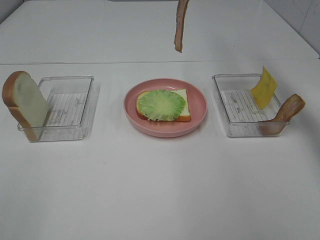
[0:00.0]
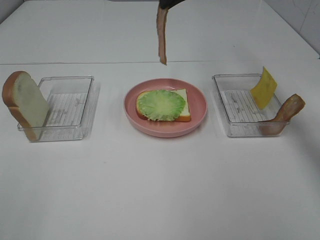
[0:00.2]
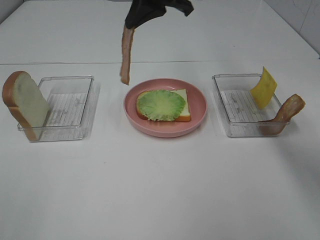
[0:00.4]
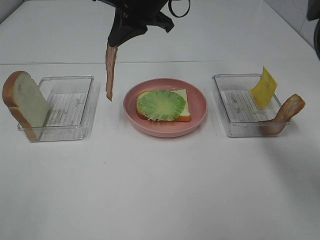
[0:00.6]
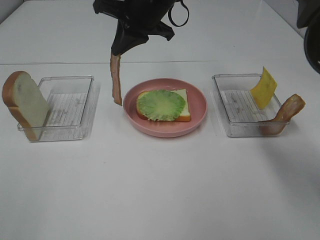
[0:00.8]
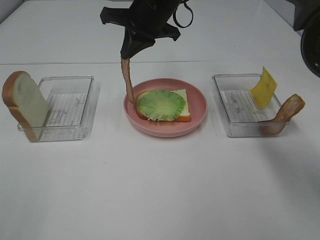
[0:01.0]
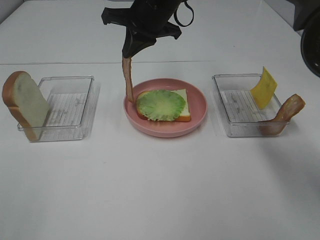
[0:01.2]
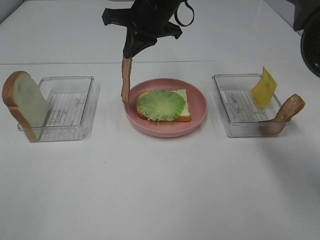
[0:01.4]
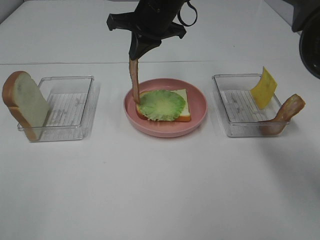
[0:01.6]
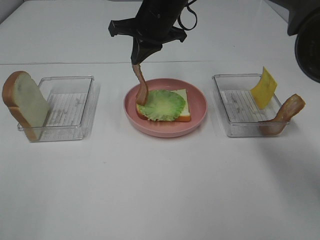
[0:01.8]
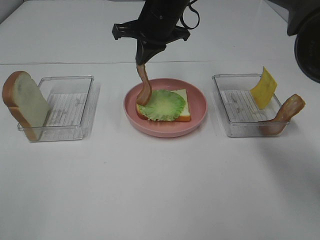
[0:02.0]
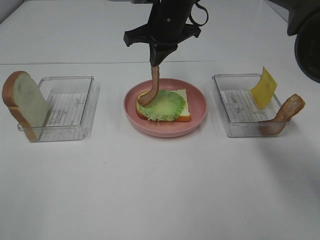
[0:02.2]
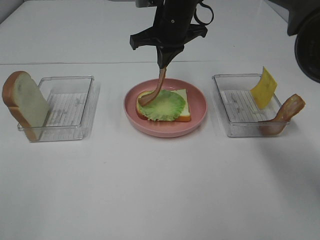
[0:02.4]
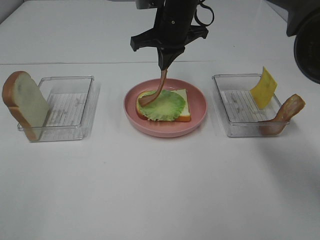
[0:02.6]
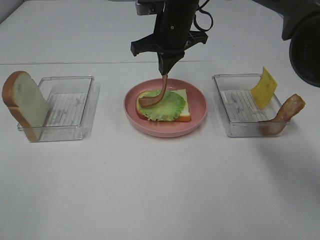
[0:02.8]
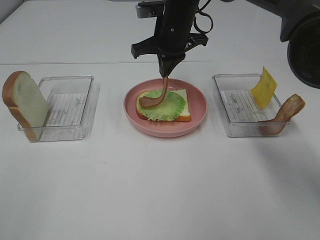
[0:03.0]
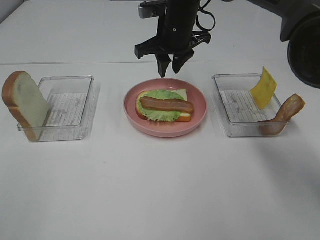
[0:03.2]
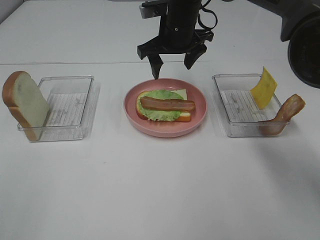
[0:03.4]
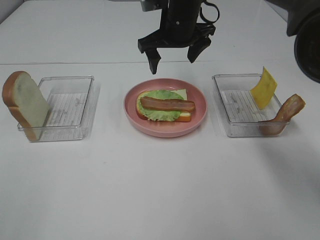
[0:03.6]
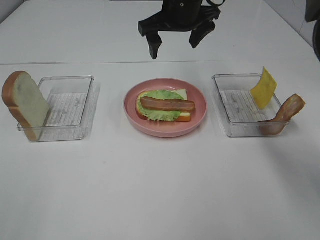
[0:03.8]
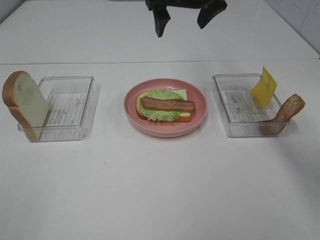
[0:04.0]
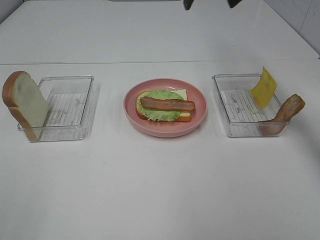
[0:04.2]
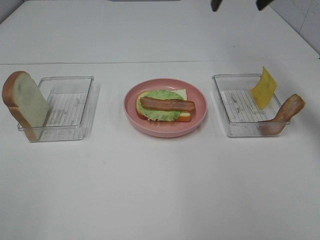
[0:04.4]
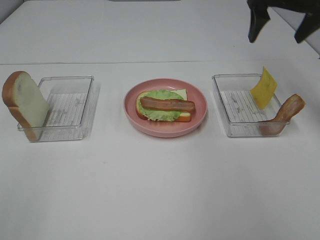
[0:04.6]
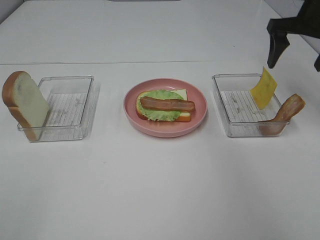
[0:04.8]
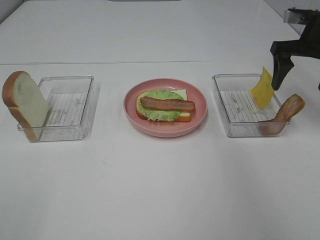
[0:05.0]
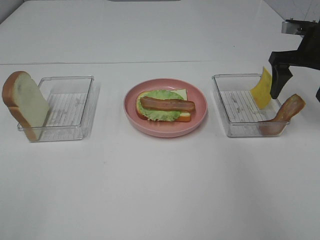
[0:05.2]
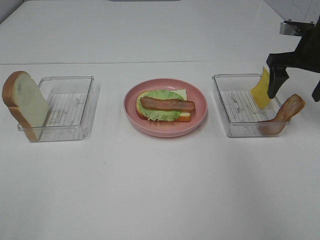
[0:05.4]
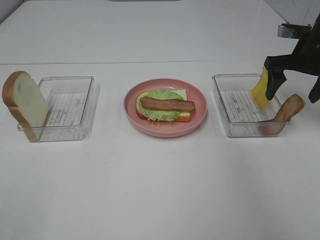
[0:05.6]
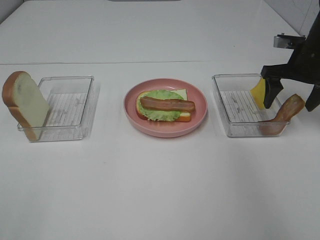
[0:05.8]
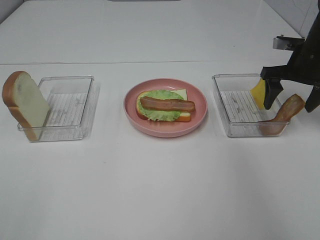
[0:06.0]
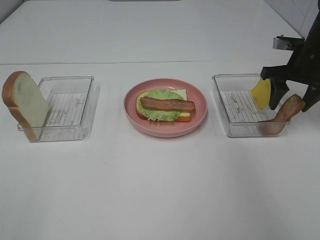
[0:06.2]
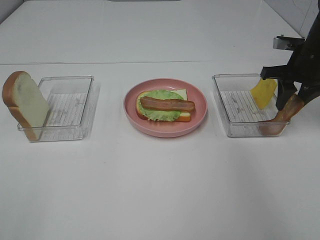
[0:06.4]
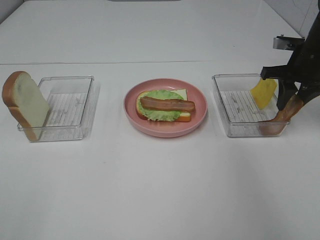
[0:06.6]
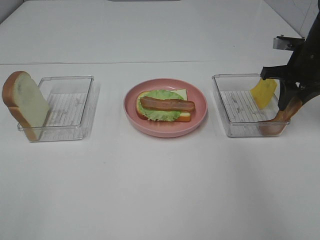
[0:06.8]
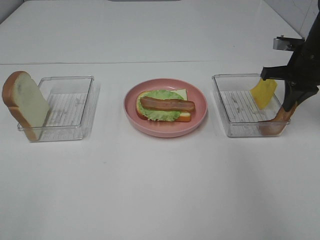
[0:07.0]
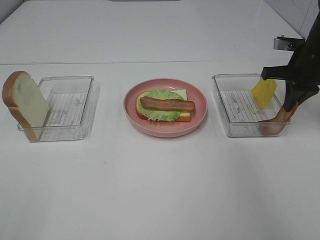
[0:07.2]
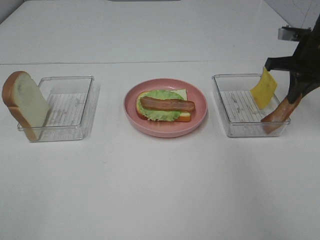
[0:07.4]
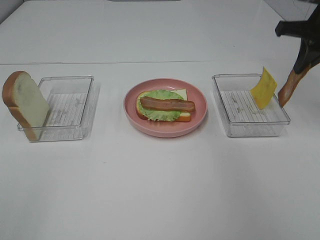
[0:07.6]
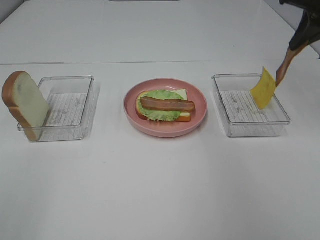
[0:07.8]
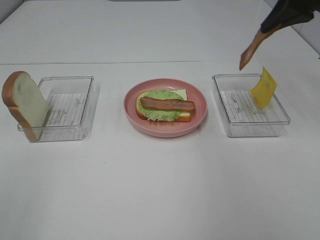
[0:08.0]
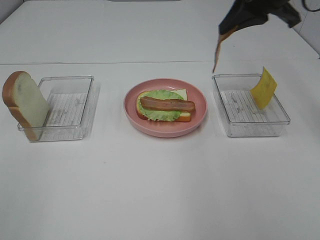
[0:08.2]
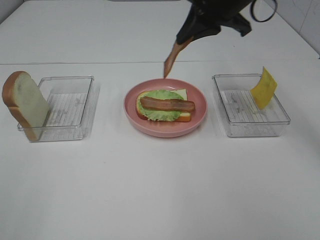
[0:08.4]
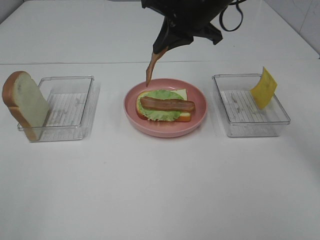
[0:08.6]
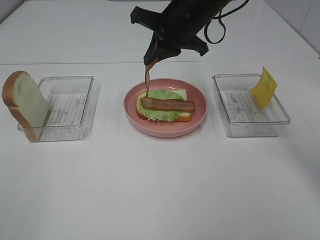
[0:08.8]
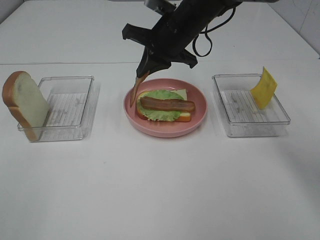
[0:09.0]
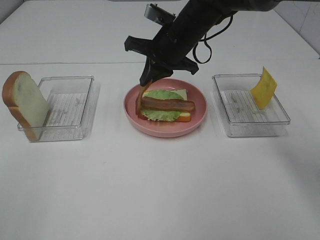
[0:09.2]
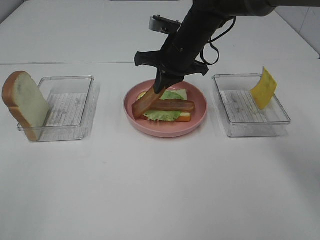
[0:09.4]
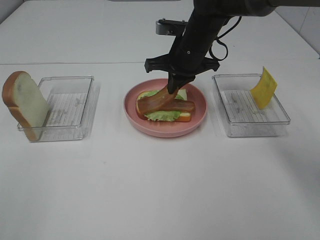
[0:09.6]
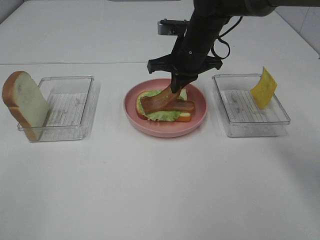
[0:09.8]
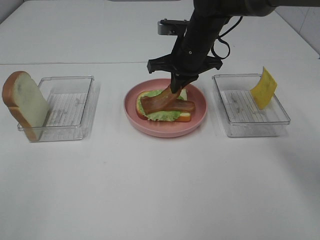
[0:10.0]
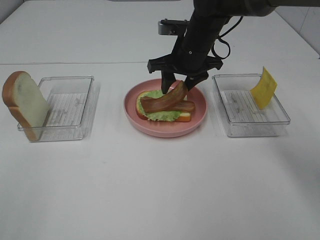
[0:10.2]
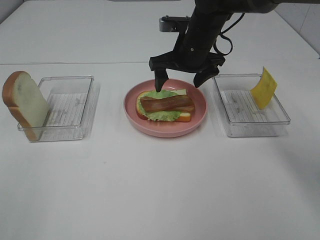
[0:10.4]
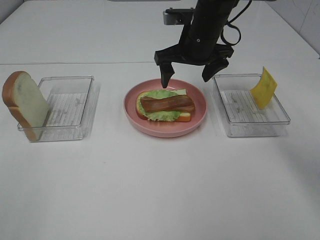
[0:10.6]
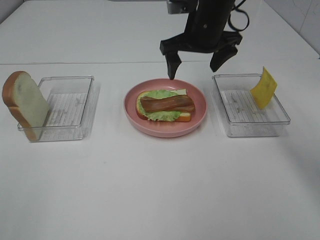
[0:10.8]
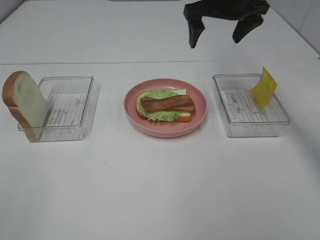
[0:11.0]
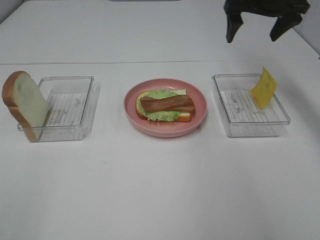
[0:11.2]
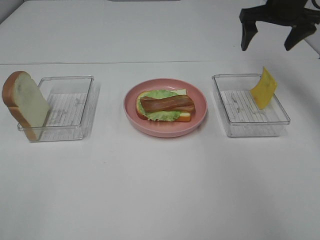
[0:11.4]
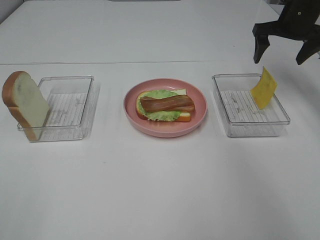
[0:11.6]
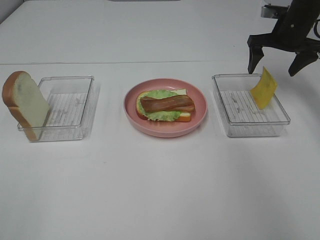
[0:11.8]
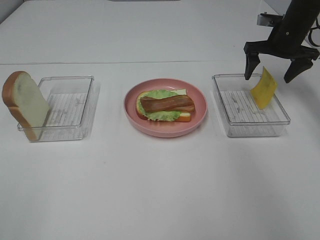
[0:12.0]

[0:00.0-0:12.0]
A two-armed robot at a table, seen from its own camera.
Task of the whole recording: Make sandwiches.
Step, 0:00.0 to 0:03.4: Right hand:place bacon on lettuce slice.
Step, 0:03.6 to 0:07.4: Right hand:grab the bacon.
Step, 0:07.6 to 0:10.4: Right hand:place bacon on bacon.
0:00.0 to 0:01.6: The right gripper travels to the left and downward by roughly 15 cm.
0:01.6 to 0:03.0: The grippers move only a little.
0:03.0 to 0:04.4: The right gripper heads to the right and upward, covering roughly 20 cm, and opens up.
0:04.4 to 0:06.0: The right gripper heads downward and to the right, covering roughly 20 cm.
0:06.0 to 0:07.6: The right gripper travels upward by some 10 cm, and closes up.
0:07.6 to 0:09.0: The right gripper is displaced to the left by roughly 25 cm.
0:09.0 to 0:10.4: The right gripper opens up.
0:10.4 to 0:12.0: The right gripper shifts about 20 cm to the right.

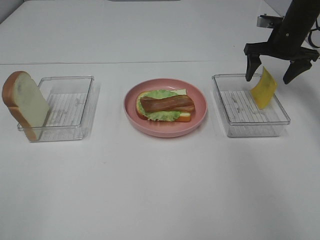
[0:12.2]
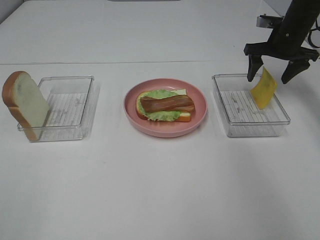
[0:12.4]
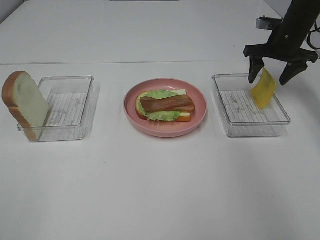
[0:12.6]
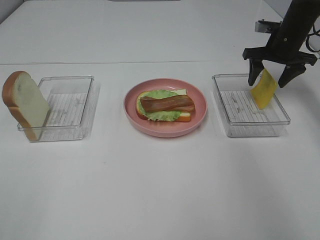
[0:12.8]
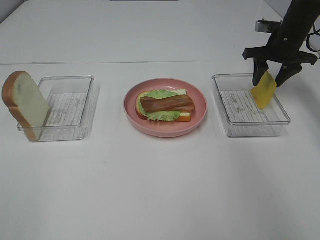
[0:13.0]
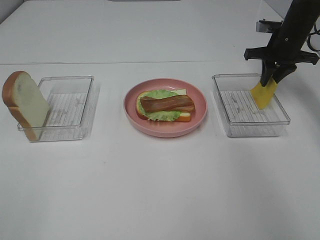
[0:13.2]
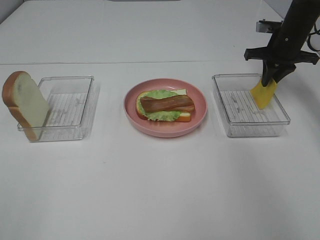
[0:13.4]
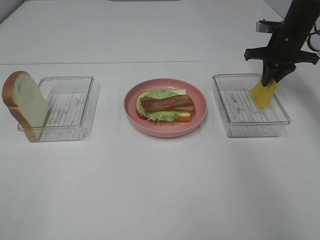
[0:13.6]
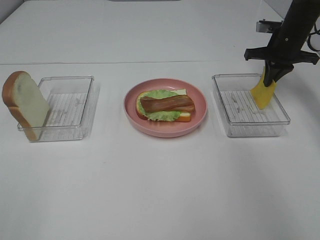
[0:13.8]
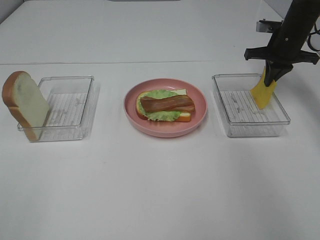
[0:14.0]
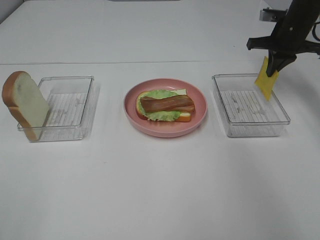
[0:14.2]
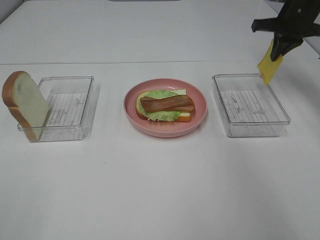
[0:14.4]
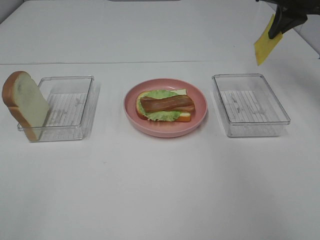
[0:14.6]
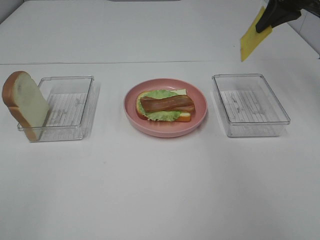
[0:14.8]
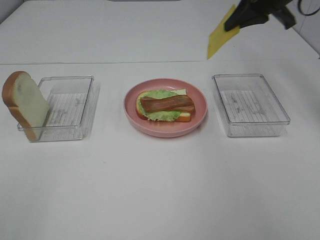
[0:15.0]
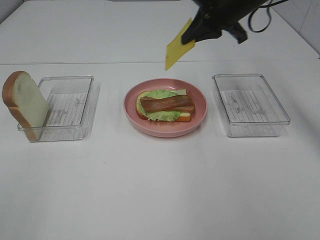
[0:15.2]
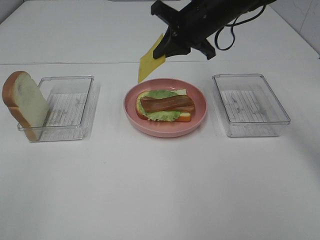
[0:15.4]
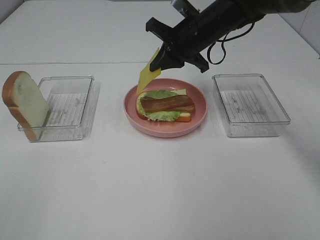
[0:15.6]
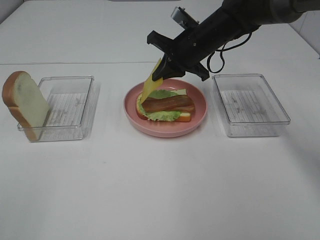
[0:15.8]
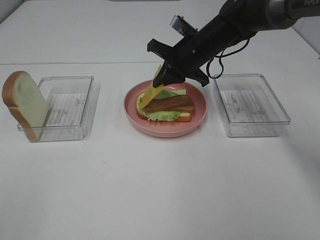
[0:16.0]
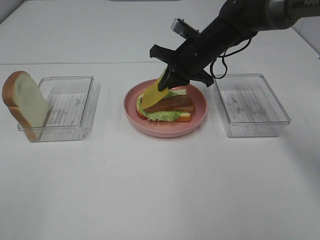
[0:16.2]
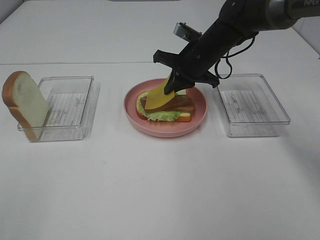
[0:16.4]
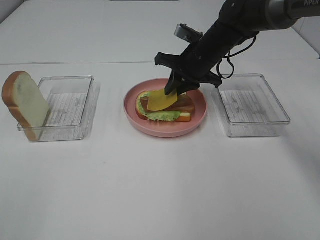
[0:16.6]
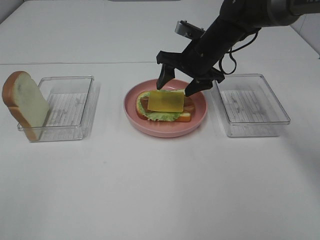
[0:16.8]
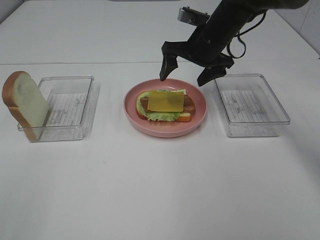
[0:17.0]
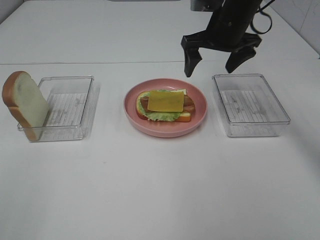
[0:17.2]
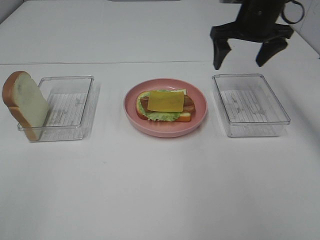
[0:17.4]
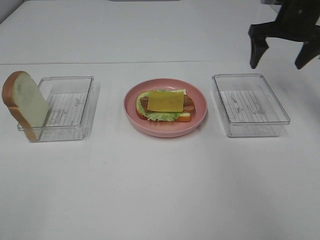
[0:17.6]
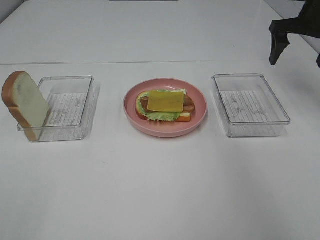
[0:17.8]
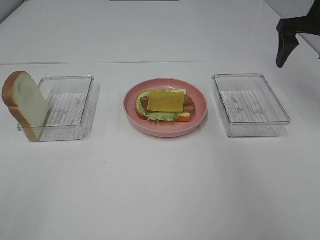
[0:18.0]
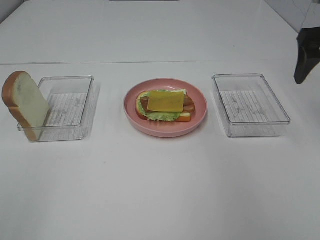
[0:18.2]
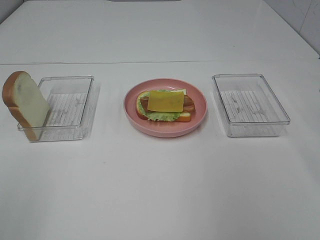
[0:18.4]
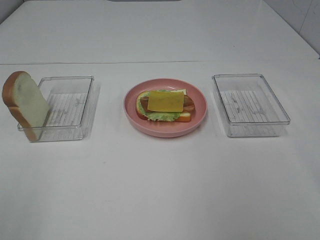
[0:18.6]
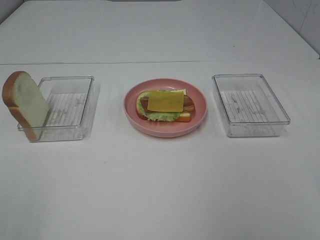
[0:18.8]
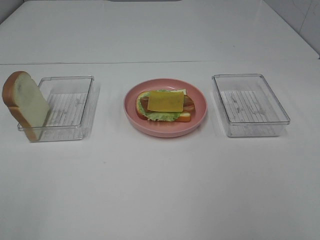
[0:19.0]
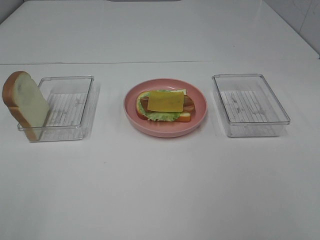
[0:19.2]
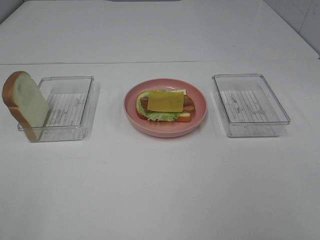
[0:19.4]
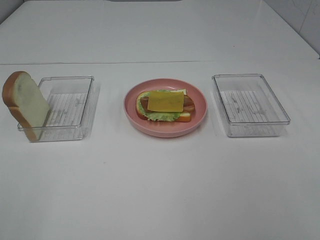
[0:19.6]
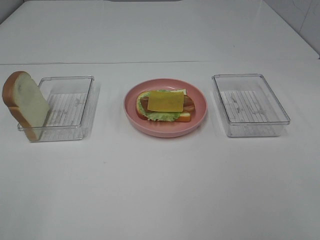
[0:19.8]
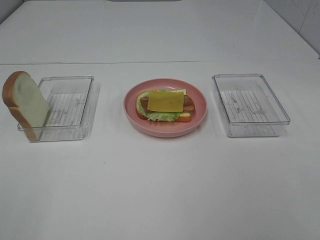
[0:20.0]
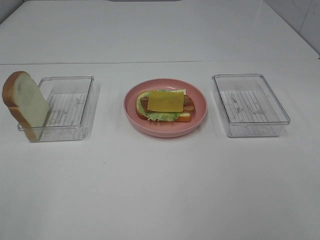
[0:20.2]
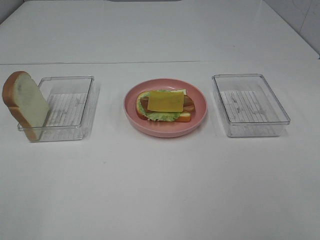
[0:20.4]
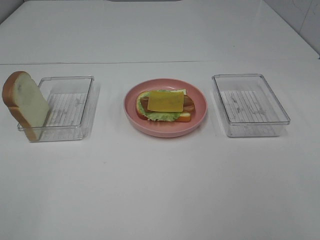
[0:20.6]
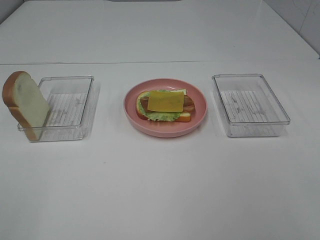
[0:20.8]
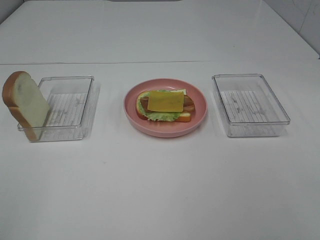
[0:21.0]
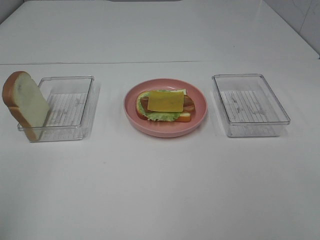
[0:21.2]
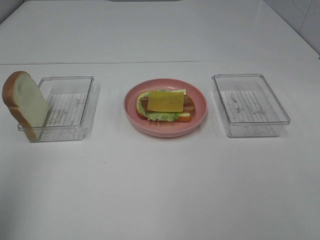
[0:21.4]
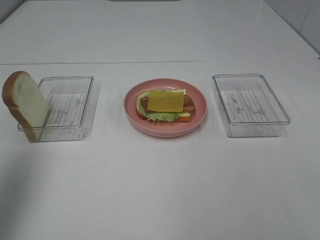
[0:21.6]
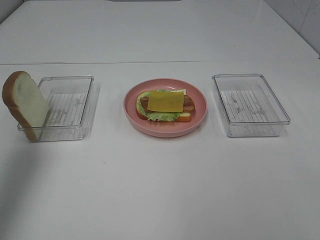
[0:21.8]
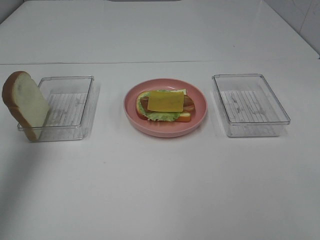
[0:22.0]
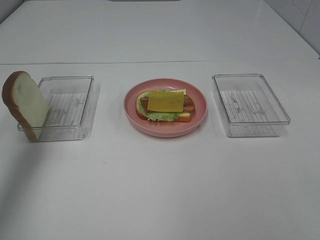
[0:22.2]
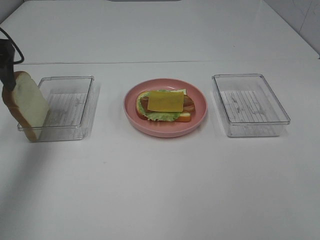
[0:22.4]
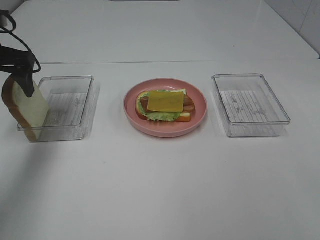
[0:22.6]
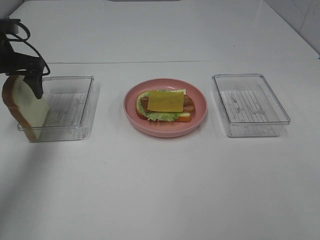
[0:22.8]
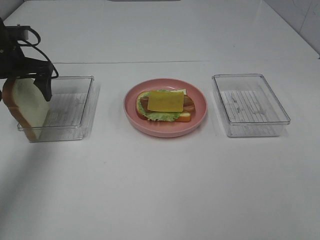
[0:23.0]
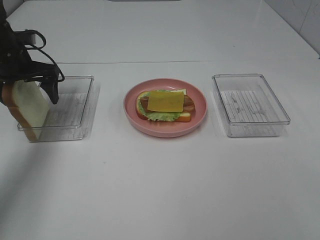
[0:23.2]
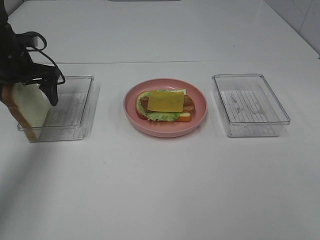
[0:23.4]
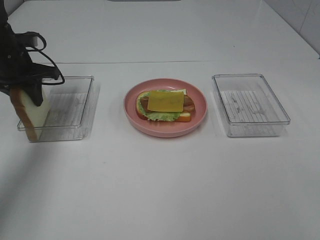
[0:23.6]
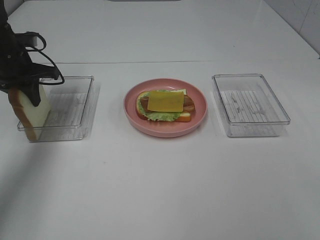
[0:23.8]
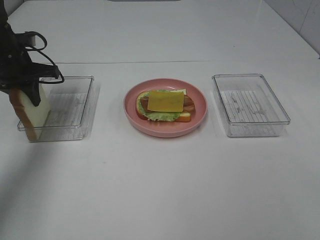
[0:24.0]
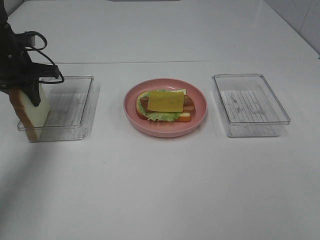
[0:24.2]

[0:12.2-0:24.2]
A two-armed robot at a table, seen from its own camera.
Task of the whole recording: Make sandwiches.
Step, 0:12.2 to 0:14.2: Right hand:grab the cheese slice.
Step, 0:14.4 to 0:16.8: Right hand:place the cheese slice on top of the bacon.
Step, 0:17.0 to 0:24.0: Left hand:grab the bread slice.
0:12.2 to 0:13.8: The right gripper closes its fingers.
0:13.8 to 0:15.2: The right gripper moves to the left, upward and backward, some 20 cm.
0:15.2 to 0:16.6: The right gripper heads downward, covering approximately 10 cm.
0:16.6 to 0:18.2: The right gripper moves to the right, upward and backward, roughly 25 cm, and opens.
0:18.2 to 0:19.8: The right gripper is displaced backward by approximately 35 cm.
0:21.2 to 0:22.6: The left gripper shifts about 35 cm forward.
0:22.6 to 0:24.2: The left gripper heads downward, covering some 5 cm, and closes.
